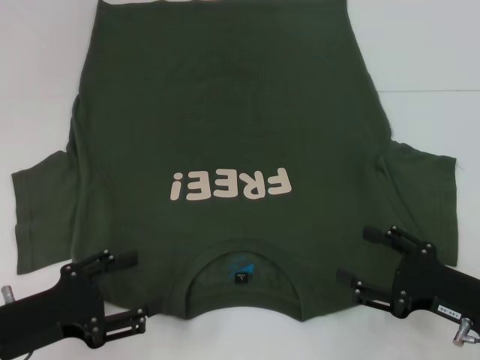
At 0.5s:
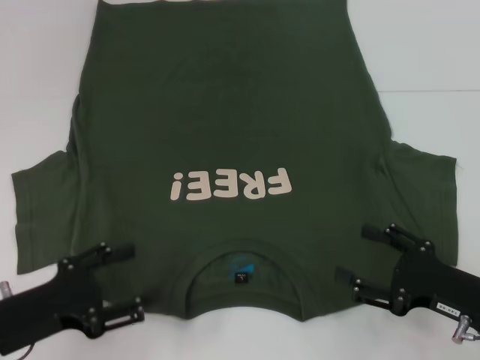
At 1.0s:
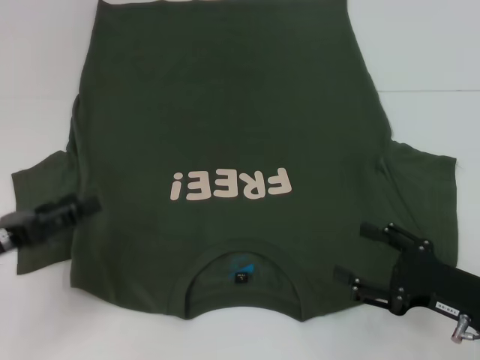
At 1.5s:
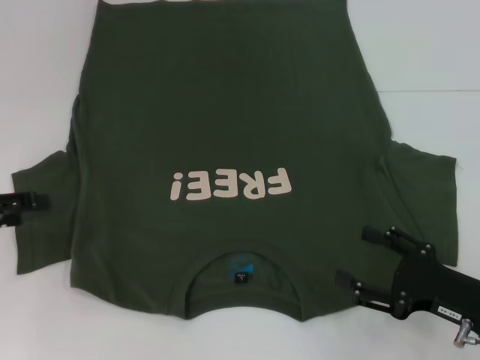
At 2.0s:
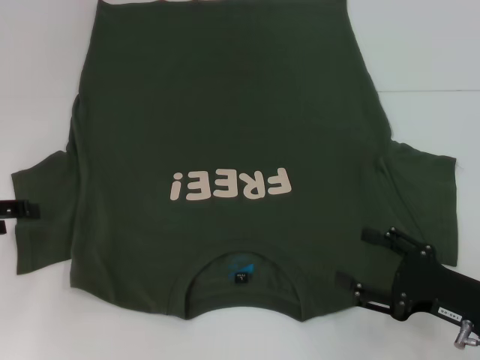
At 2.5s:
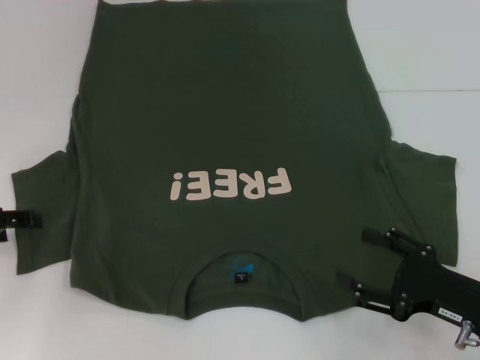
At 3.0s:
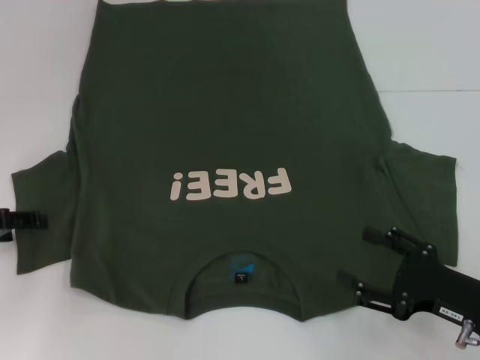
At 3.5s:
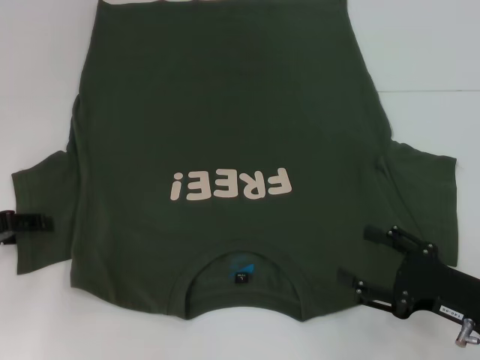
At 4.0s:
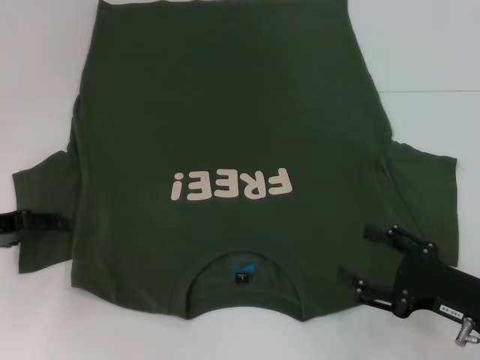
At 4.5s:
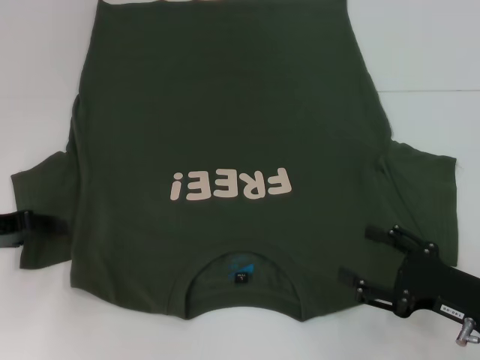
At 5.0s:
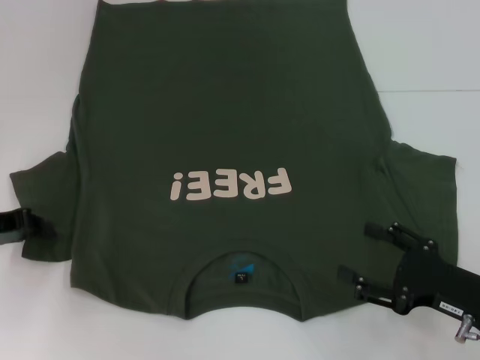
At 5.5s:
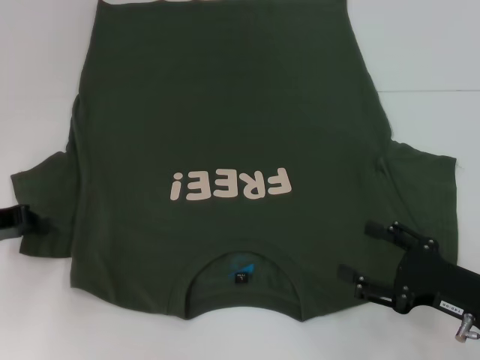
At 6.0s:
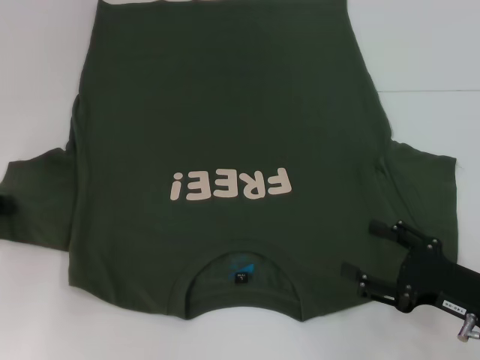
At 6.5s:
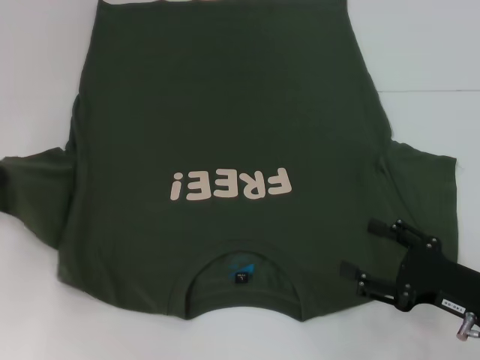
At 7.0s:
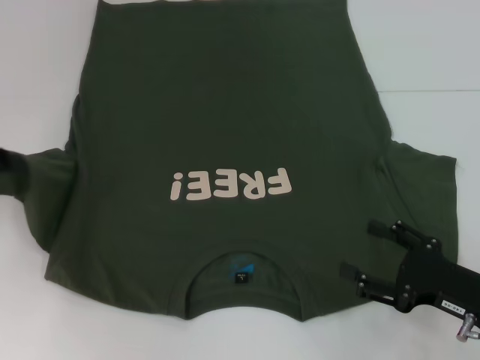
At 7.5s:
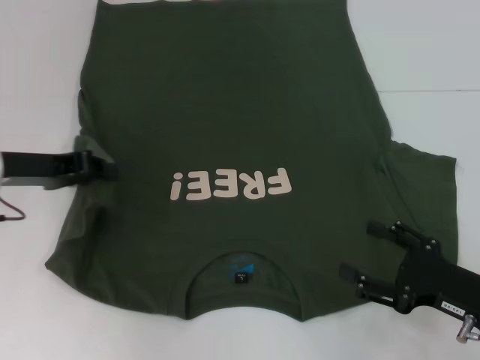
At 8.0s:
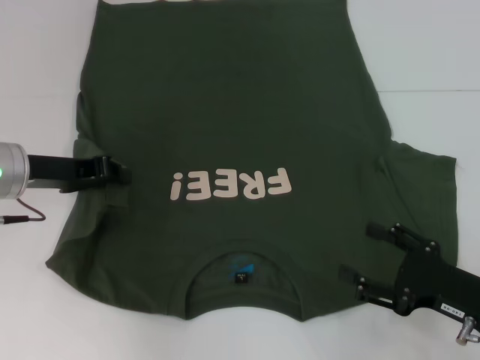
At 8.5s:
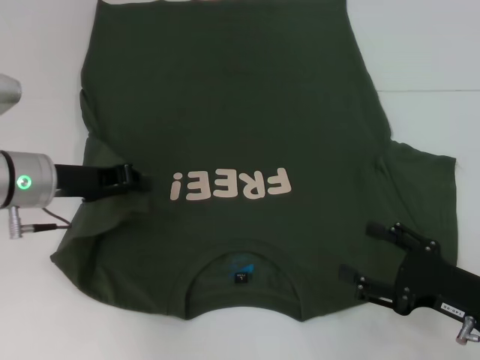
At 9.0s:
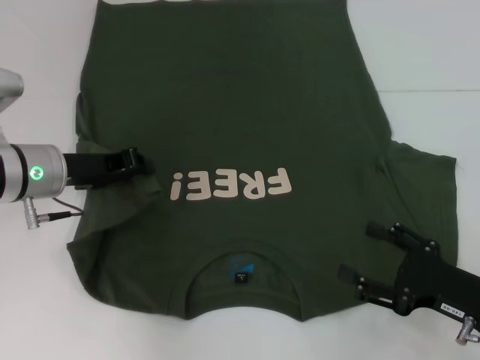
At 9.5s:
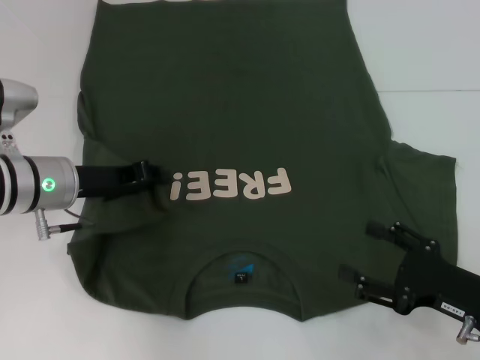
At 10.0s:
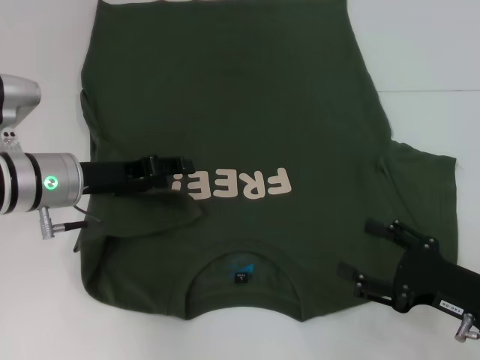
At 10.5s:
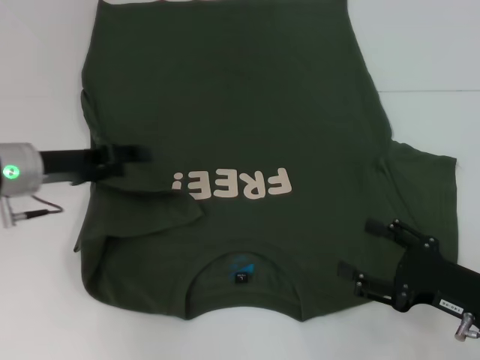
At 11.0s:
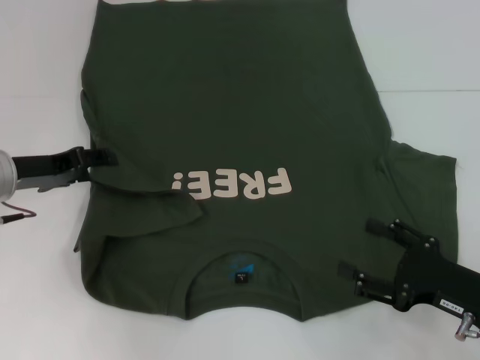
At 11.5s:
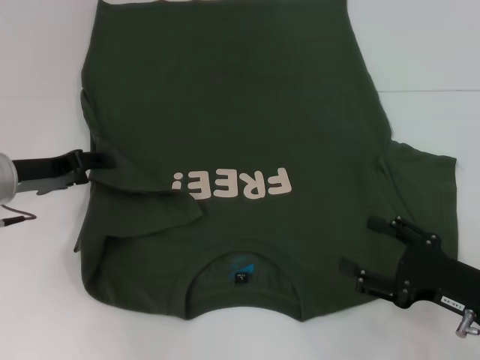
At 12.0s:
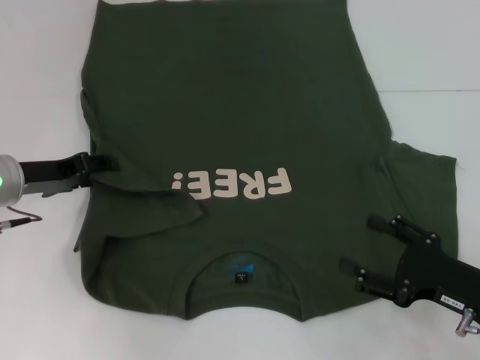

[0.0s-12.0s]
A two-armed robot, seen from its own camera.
0.0s to 2.0s: The left gripper is displaced forward, to the left and upward by some 15 cm.
2.0s to 4.0s: The grippers move only a little.
4.0s to 6.0s: The left gripper closes.
6.0s to 8.0s: The left gripper travels to the right by about 10 cm.
8.0s to 10.0s: The left gripper changes place by roughly 5 cm, and opens.
10.0s to 12.0s: The left gripper is displaced to the left by some 5 cm.

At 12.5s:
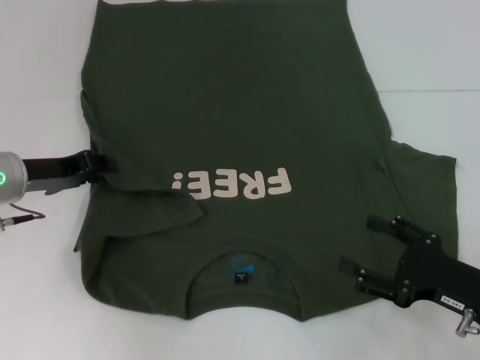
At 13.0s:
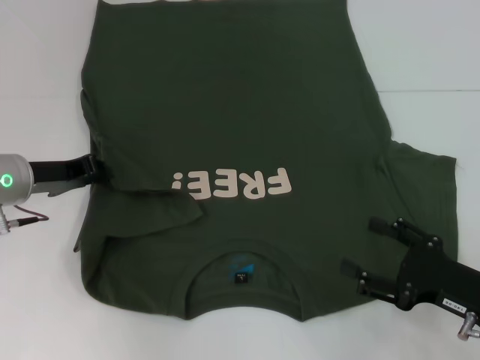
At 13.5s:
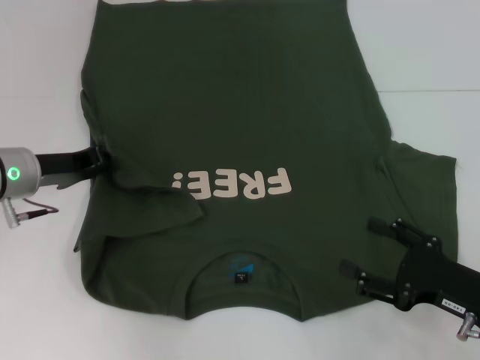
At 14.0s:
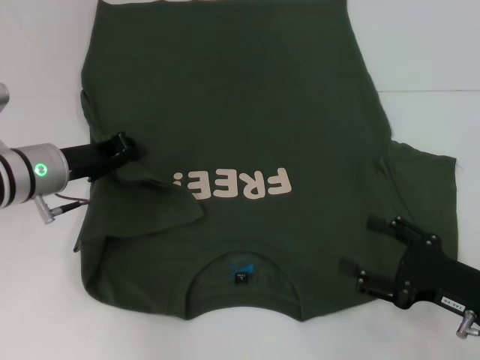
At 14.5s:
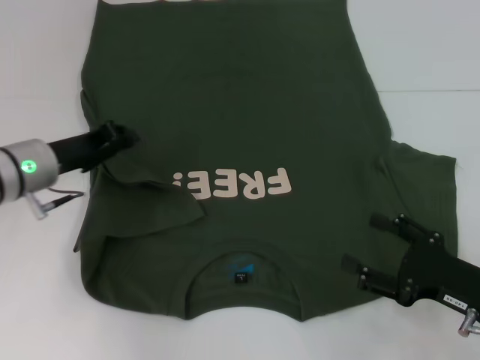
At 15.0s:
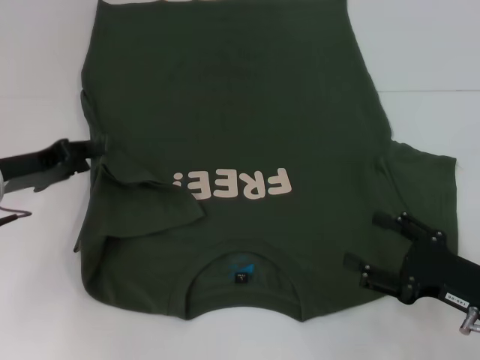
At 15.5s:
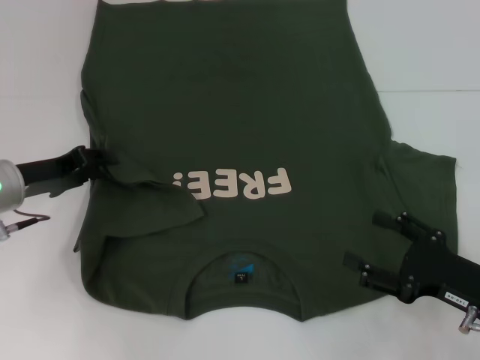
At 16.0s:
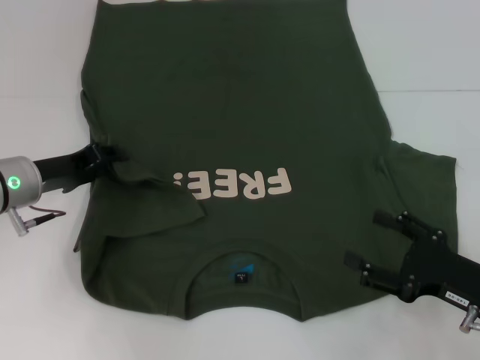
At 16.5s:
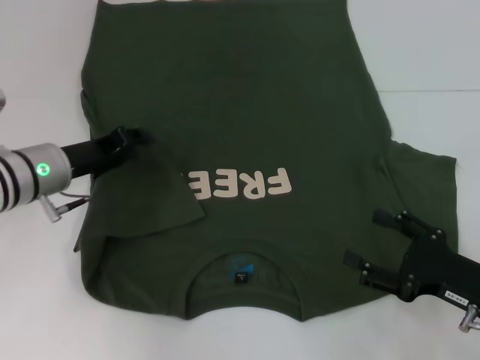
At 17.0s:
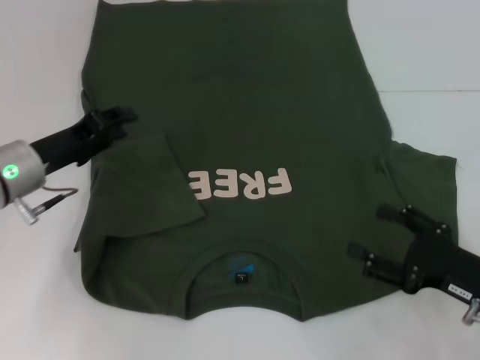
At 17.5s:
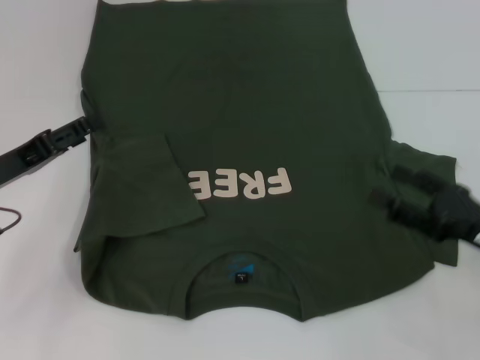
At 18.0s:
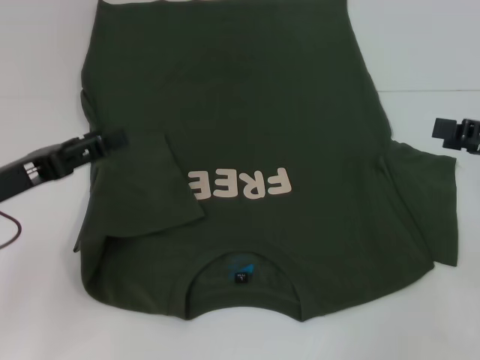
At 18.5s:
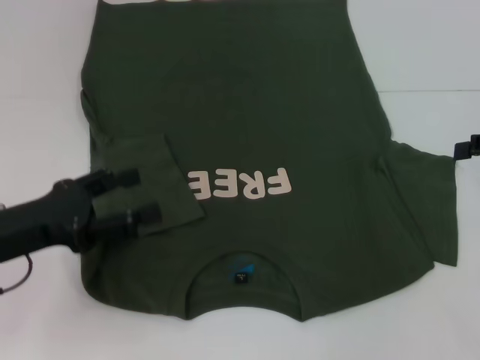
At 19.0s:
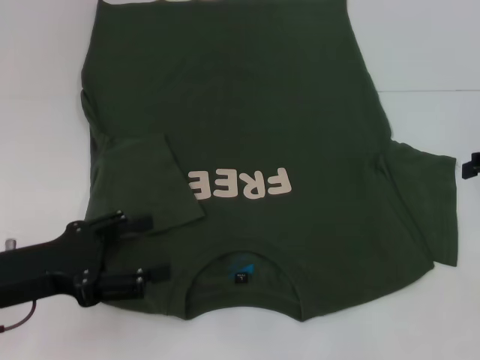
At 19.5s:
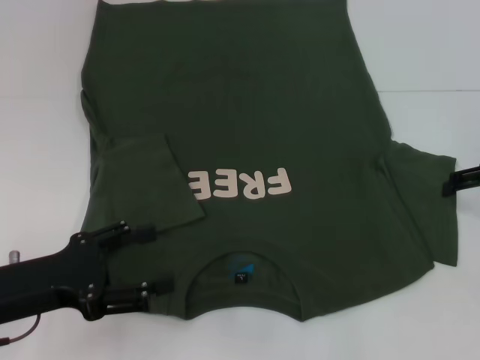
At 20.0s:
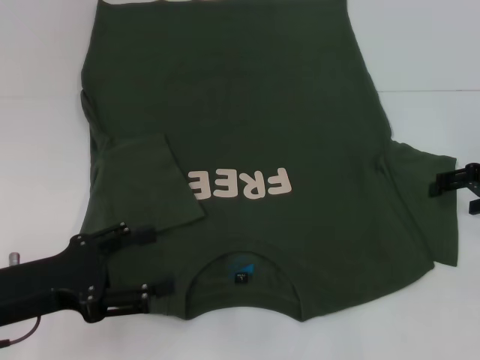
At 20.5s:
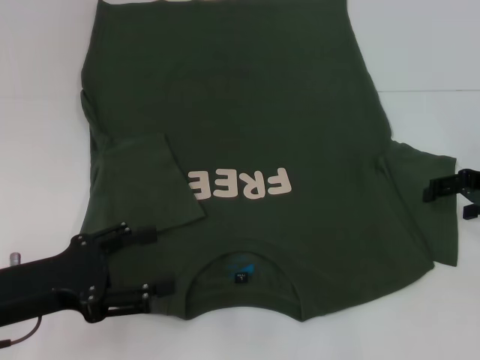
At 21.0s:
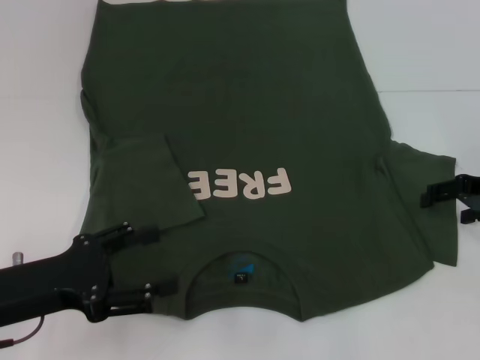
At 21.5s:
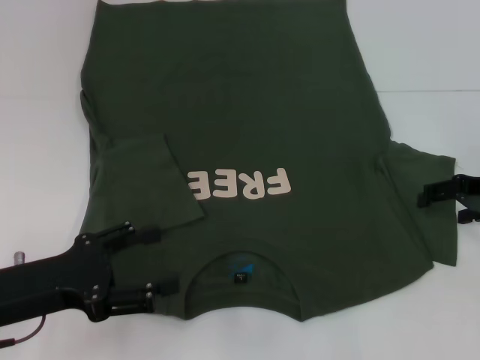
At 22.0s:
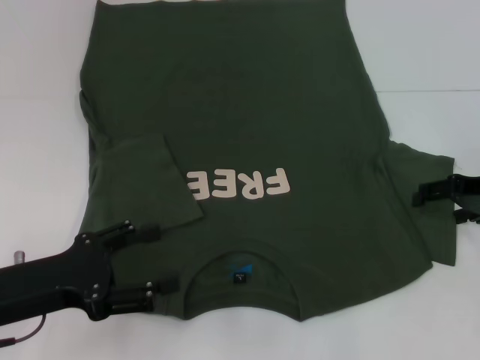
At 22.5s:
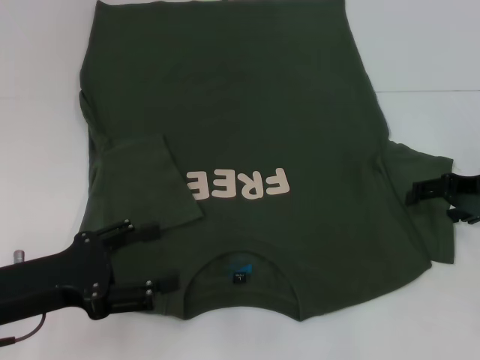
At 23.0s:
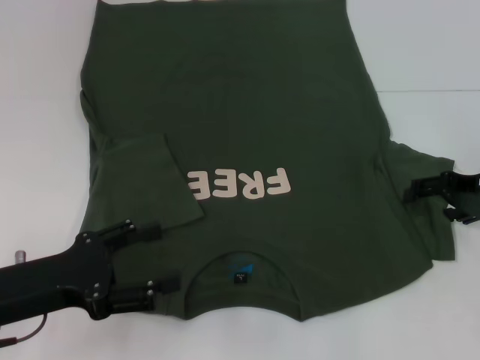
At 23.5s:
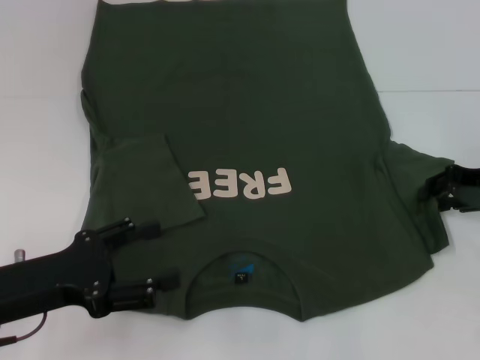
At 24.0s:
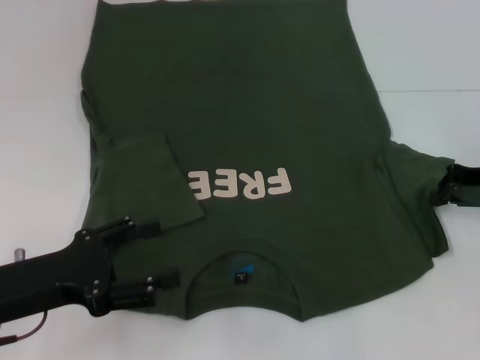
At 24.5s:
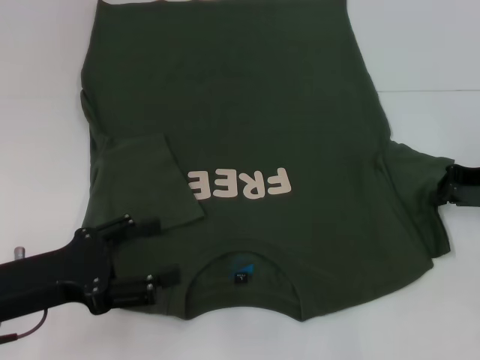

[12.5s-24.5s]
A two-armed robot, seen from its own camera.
12.5s to 14.5s: The left gripper closes its fingers.
14.5s to 16.5s: There are only small adjustments of the grippers.
16.5s to 18.5s: The left gripper is displaced backward by some 10 cm, and opens its fingers; the right gripper is displaced upward, forward and to the right by approximately 20 cm.
18.5s to 20.5s: The right gripper heads downward, covering roughly 5 cm.
20.5s to 22.5s: The grippers move only a little.
22.5s to 24.5s: The right gripper closes up.

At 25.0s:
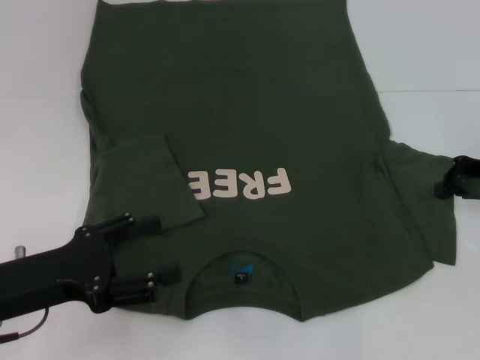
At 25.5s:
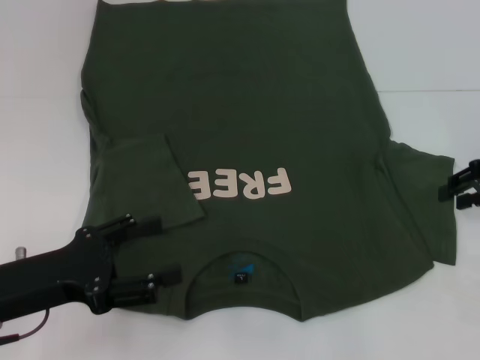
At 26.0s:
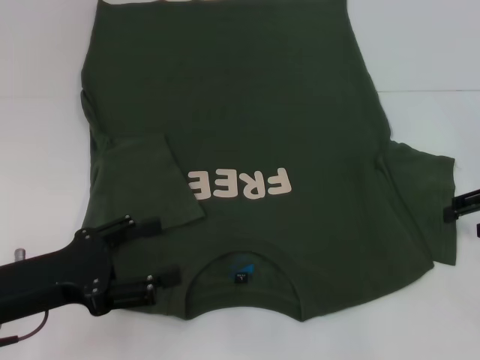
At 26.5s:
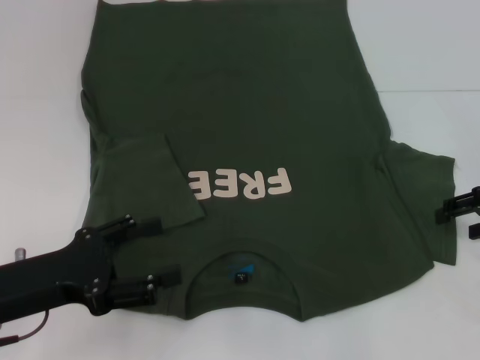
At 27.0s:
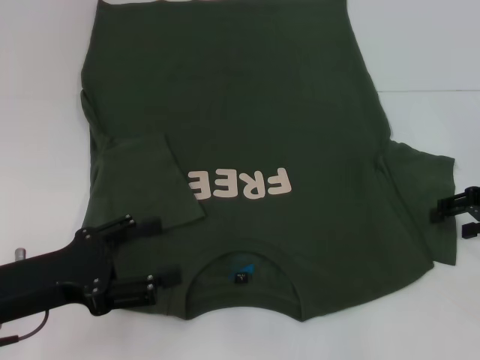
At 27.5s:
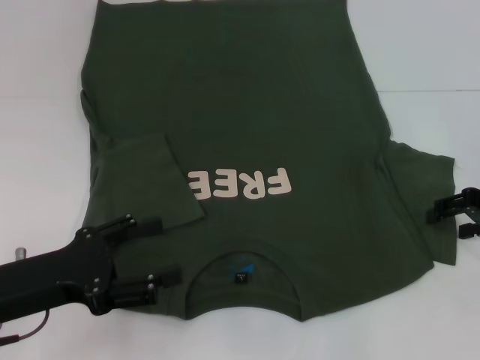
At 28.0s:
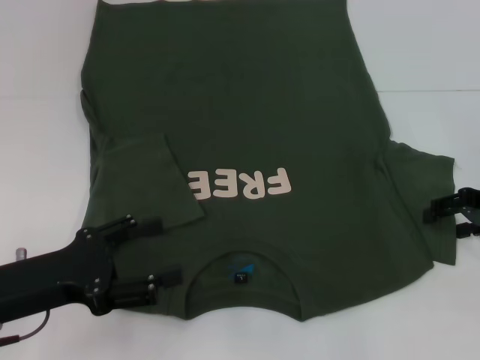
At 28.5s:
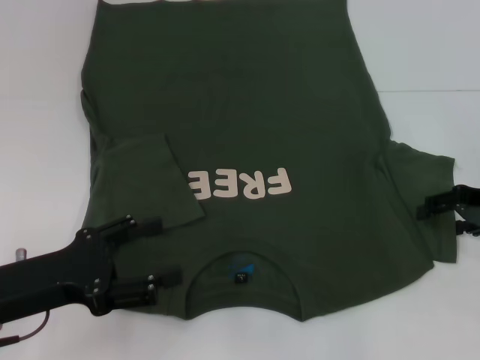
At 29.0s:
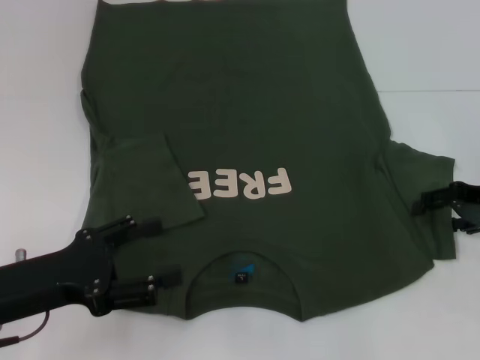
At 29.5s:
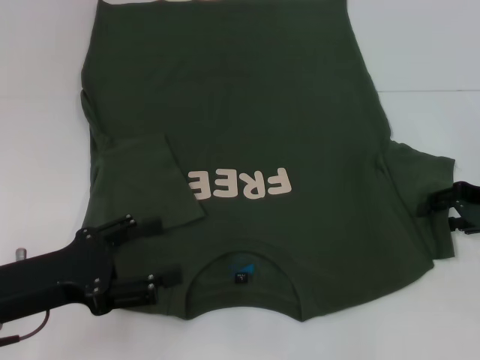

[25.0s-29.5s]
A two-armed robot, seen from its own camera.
25.0s to 27.0s: The right gripper opens up.
27.0s to 29.5s: The grippers move only a little.
